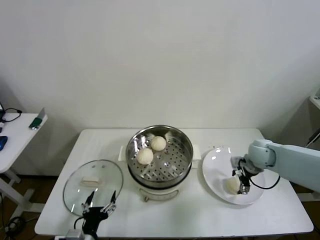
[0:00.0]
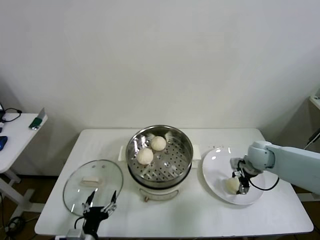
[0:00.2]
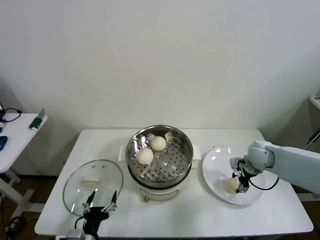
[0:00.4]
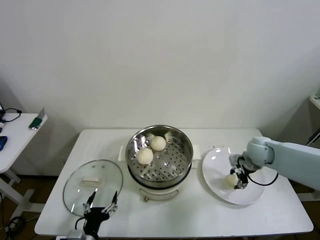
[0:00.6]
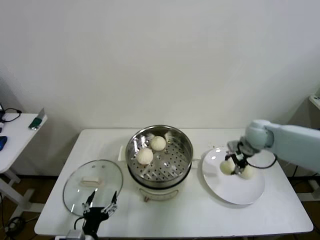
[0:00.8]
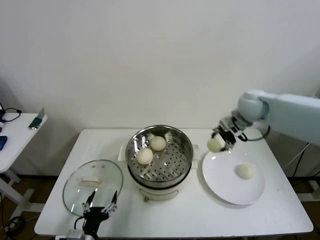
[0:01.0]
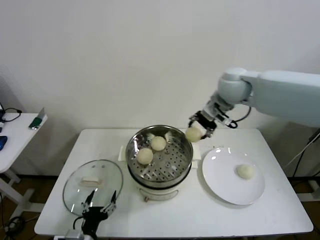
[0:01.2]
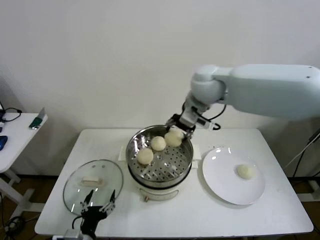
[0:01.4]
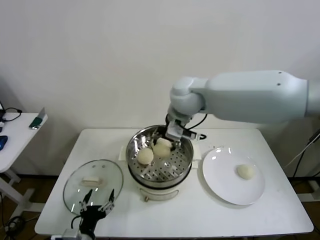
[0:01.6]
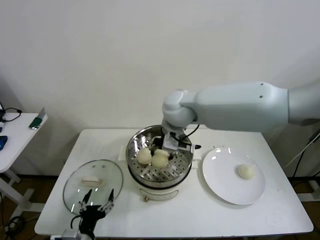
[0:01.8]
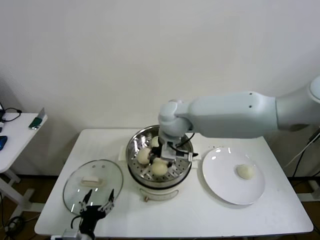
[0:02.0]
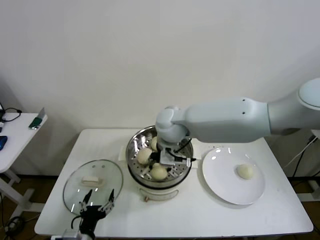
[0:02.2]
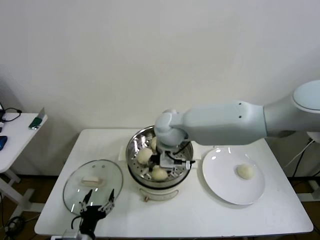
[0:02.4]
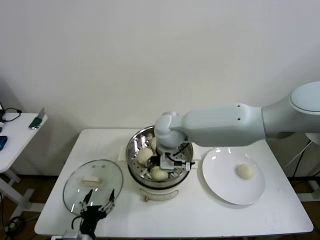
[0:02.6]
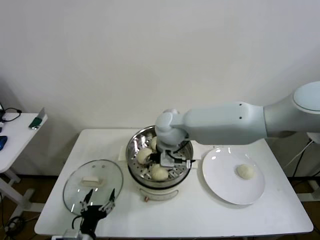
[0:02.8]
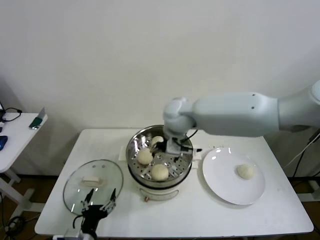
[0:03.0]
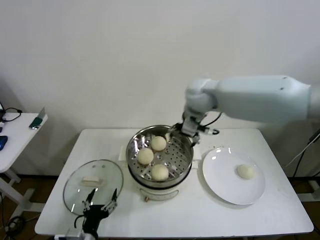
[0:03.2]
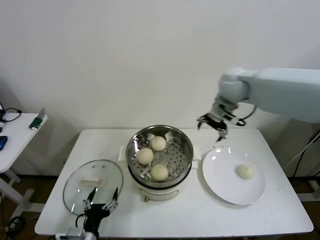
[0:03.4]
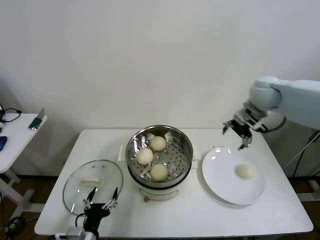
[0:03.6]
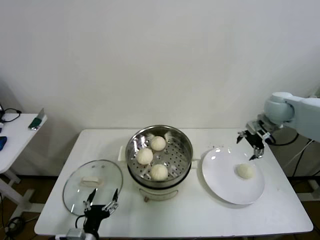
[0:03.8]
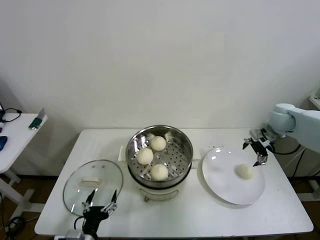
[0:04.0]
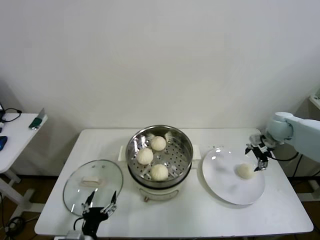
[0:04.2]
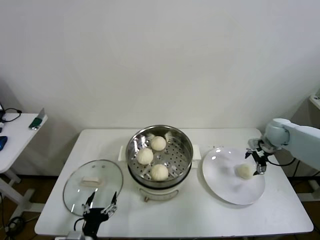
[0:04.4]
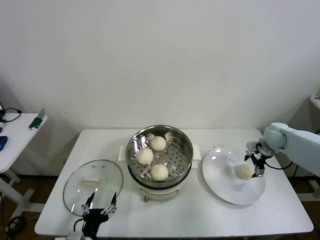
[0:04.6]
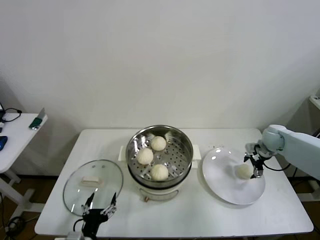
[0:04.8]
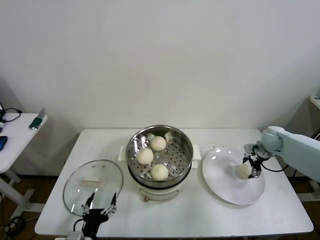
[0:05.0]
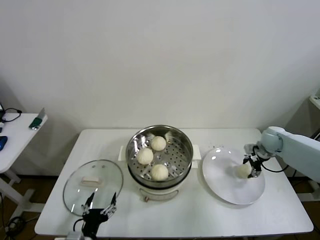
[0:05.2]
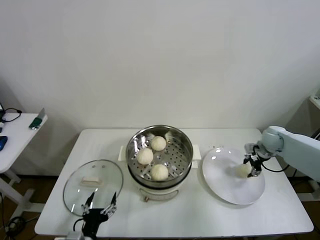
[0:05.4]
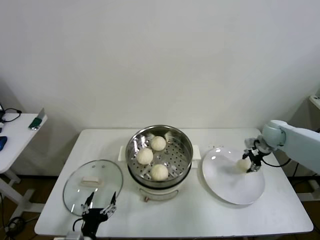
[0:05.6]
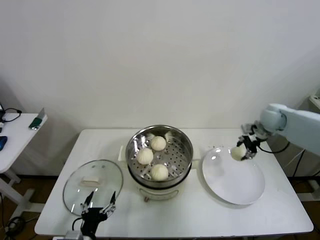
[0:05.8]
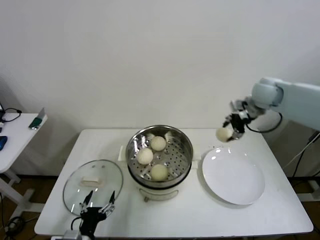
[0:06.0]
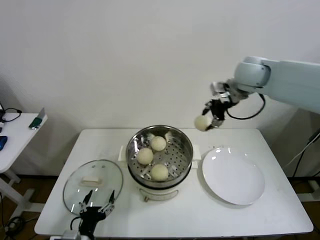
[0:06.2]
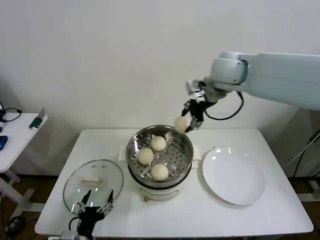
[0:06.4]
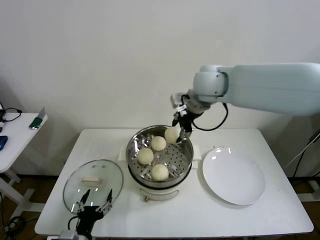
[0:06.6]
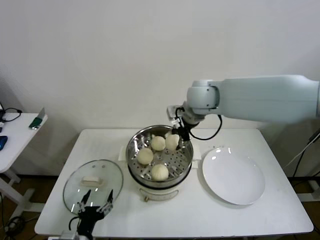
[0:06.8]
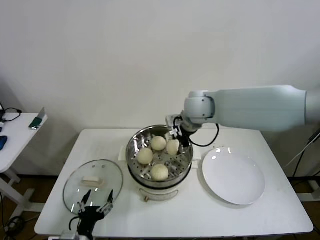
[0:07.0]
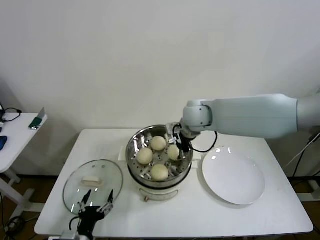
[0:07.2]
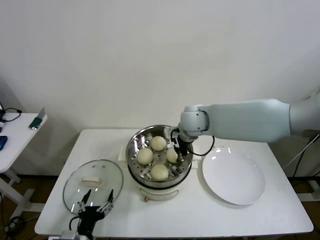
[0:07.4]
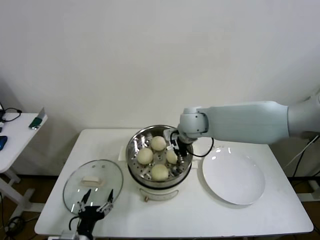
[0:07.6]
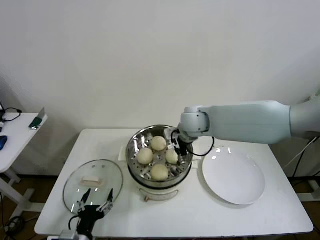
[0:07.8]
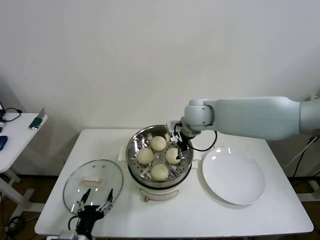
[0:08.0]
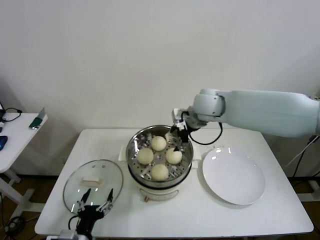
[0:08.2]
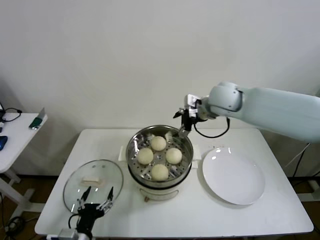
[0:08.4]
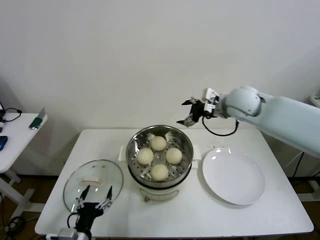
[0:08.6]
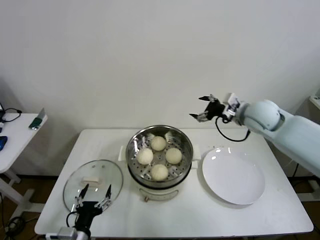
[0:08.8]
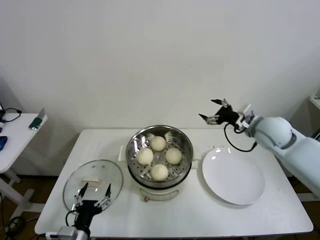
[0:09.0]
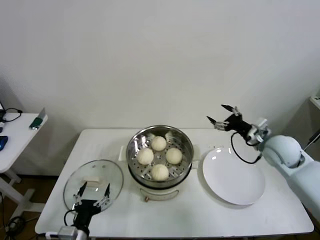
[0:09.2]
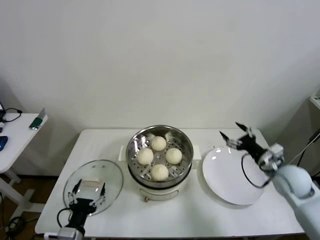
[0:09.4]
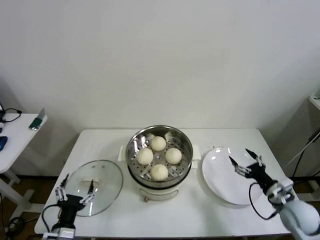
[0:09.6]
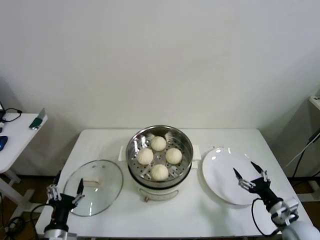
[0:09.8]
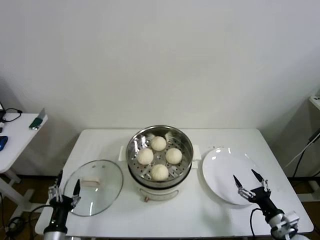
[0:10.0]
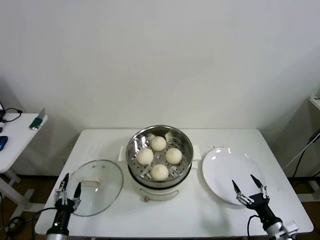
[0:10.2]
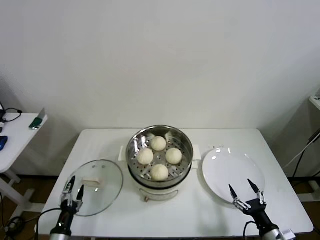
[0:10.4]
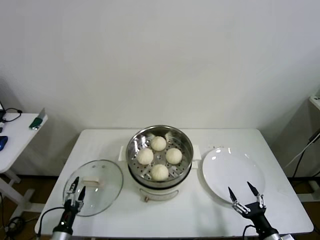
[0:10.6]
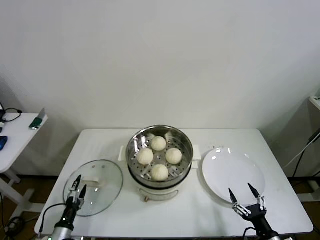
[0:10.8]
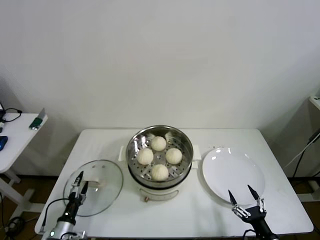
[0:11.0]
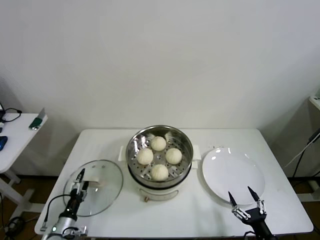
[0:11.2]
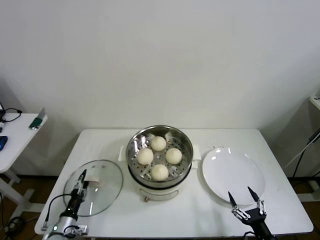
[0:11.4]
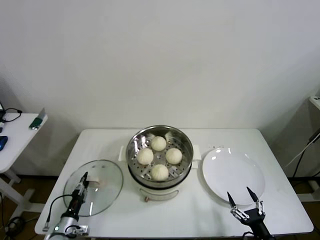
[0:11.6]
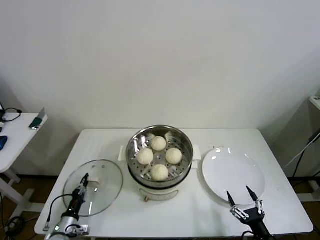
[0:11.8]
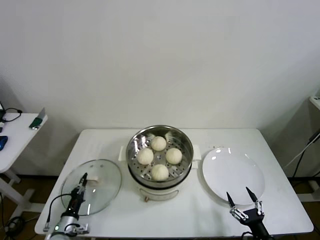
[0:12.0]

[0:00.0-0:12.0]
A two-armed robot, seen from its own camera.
Step, 0:00.4 to 0:02.8: Place the baozi on the steamer with right gripper.
Step, 0:03.0 to 0:05.2: Grasp the baozi in the plate with right gripper.
Step, 0:05.4 to 0:07.8: Place the baozi on the steamer with right gripper.
Step, 0:08.0 to 0:11.8: Grasp the pot lid with left gripper.
0:00.0 to 0:01.6: The right gripper travels to the left and upward by about 35 cm, and closes up.
0:01.6 to 0:03.0: The right gripper travels downward by some 5 cm, and opens.
0:03.0 to 0:04.4: The right gripper shifts roughly 40 cm to the right.
0:04.4 to 0:06.0: The right gripper moves upward and to the left, about 20 cm, and closes up.
0:06.0 to 0:07.6: The right gripper heads to the left, covering approximately 25 cm.
0:07.6 to 0:09.0: The right gripper goes approximately 25 cm to the right, and opens.
0:09.0 to 0:10.4: The left gripper is displaced to the left and downward by some 15 cm; the right gripper moves backward and downward, approximately 40 cm.
0:10.4 to 0:12.0: The left gripper travels forward and downward by approximately 10 cm, and closes up.

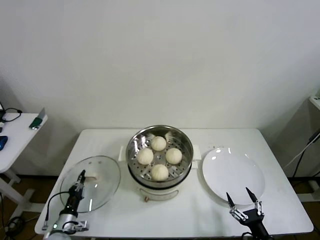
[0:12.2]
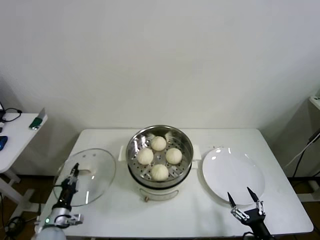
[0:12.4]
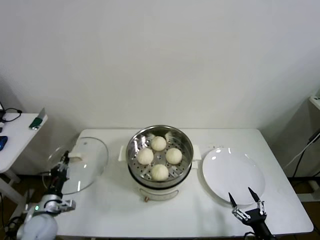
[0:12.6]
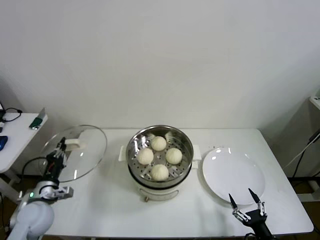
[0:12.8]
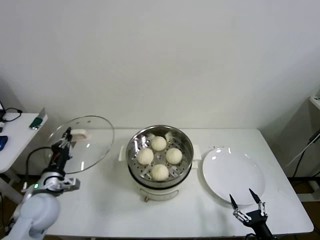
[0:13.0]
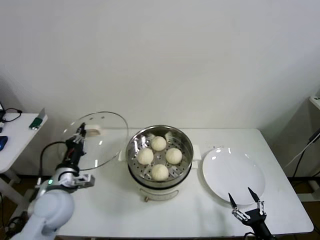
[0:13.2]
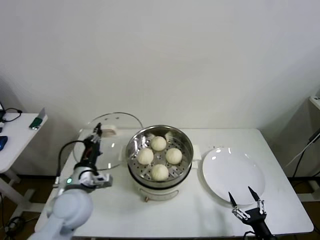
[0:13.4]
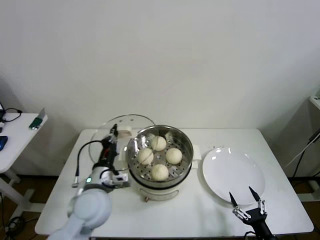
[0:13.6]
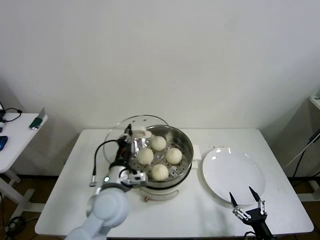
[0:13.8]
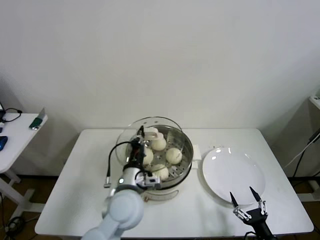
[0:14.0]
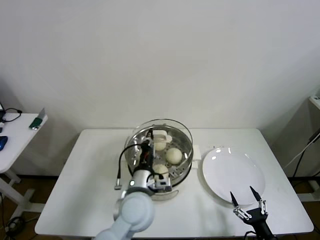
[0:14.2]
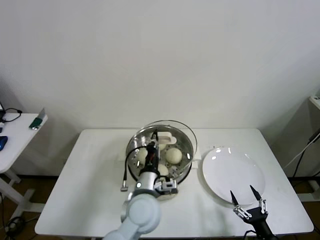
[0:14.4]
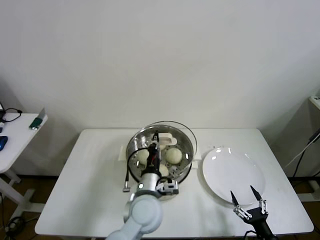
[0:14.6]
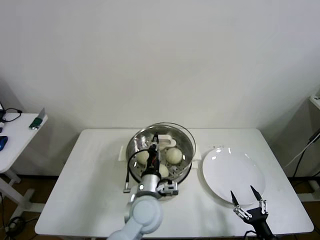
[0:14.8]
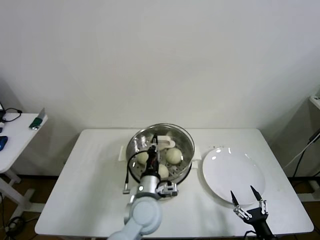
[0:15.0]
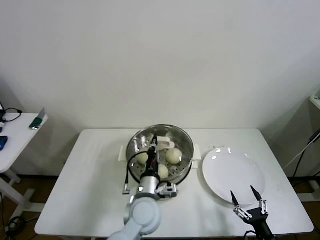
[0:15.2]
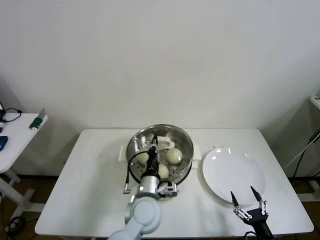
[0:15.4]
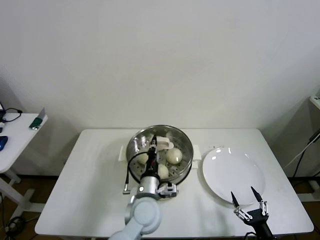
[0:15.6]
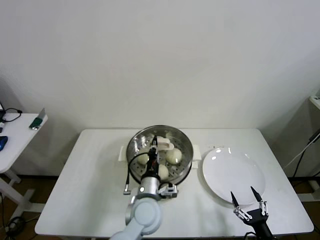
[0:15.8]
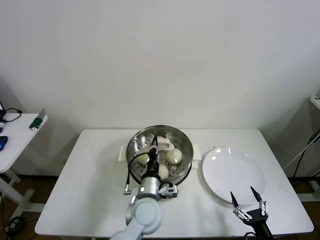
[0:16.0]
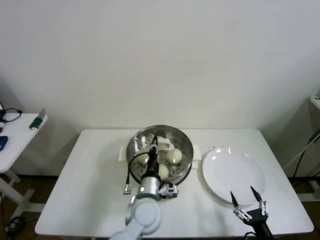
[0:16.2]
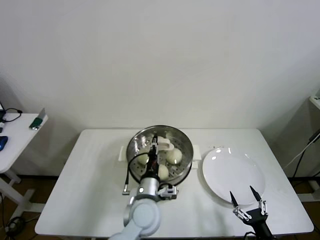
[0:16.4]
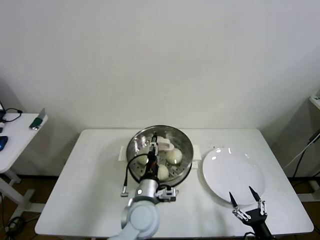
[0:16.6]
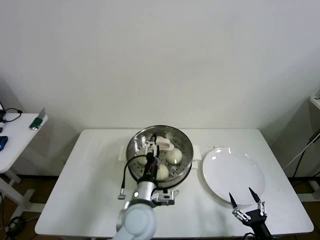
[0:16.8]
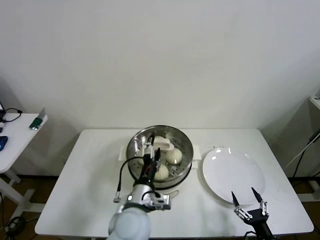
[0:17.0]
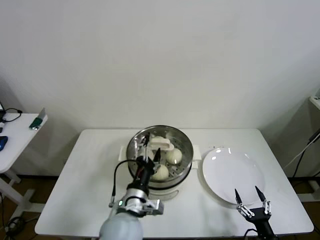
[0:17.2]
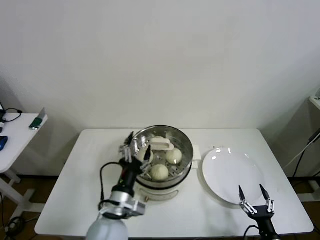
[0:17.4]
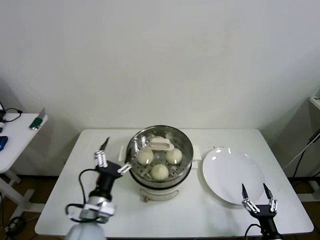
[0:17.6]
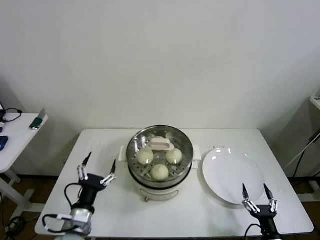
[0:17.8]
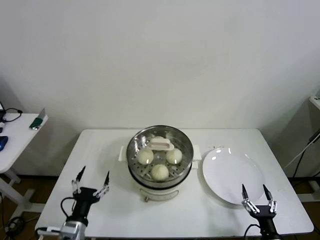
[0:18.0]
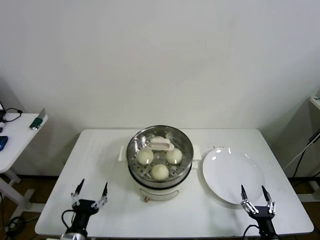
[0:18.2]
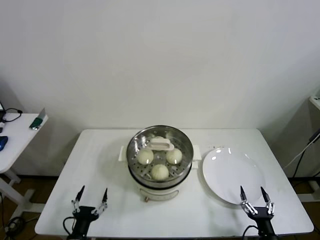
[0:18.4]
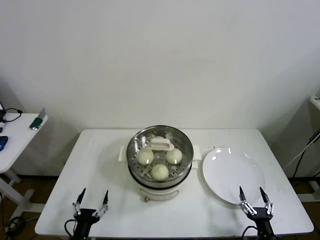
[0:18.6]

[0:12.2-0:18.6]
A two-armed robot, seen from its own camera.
Step, 0:12.2 to 0:16.2: Place the pot lid on the steamer with left gripper.
0:12.2 to 0:13.8: The left gripper moves upward and to the right, roughly 35 cm.
0:13.8 to 0:15.4: The left gripper goes approximately 10 cm to the right and downward.
0:15.4 to 0:17.0: The left gripper changes place by some 5 cm, and opens up.
0:17.0 to 0:18.6: The left gripper shifts about 30 cm to the left, downward and backward.
